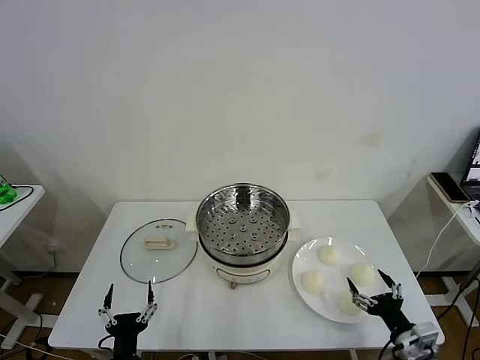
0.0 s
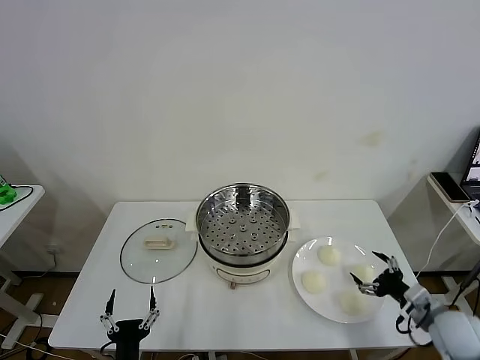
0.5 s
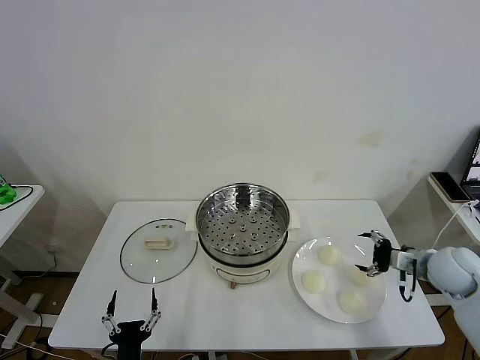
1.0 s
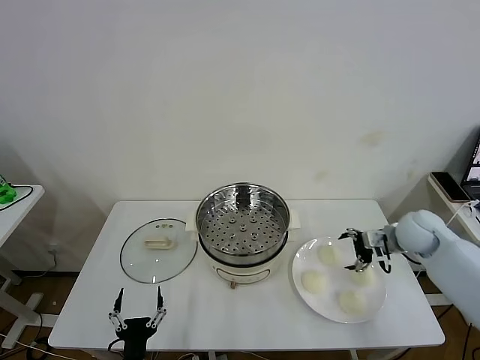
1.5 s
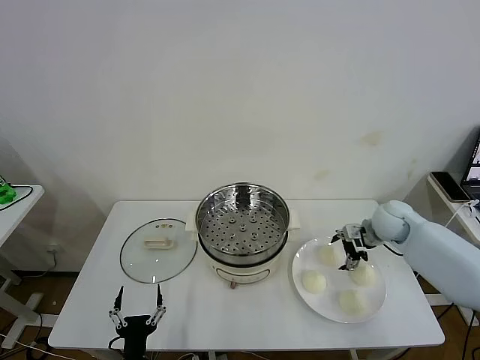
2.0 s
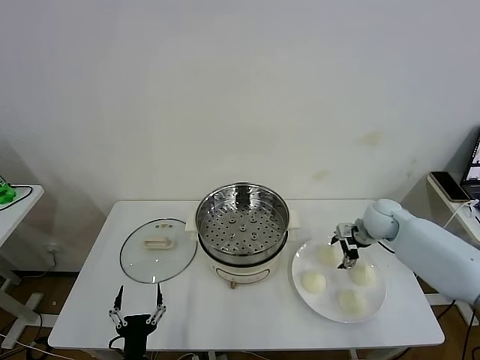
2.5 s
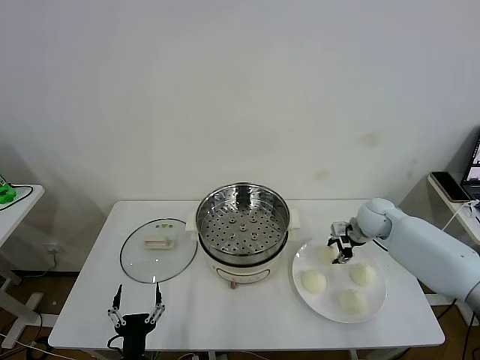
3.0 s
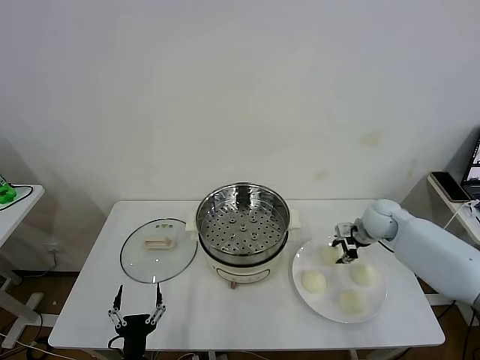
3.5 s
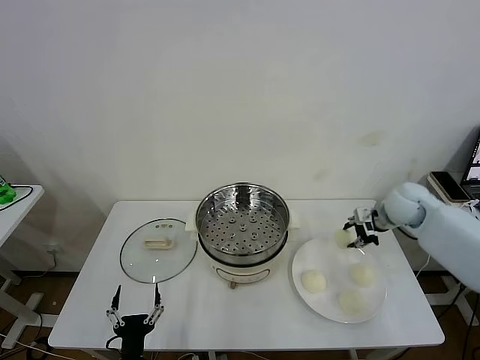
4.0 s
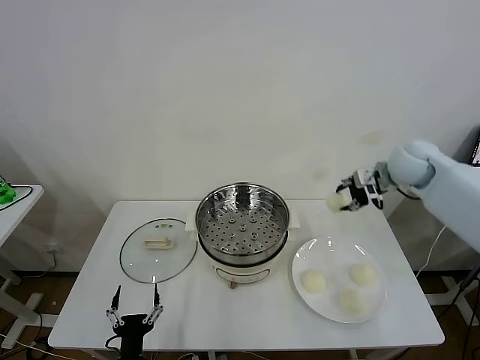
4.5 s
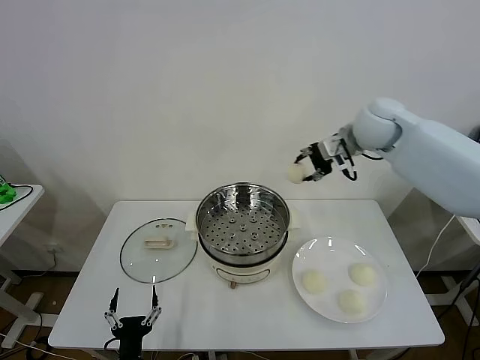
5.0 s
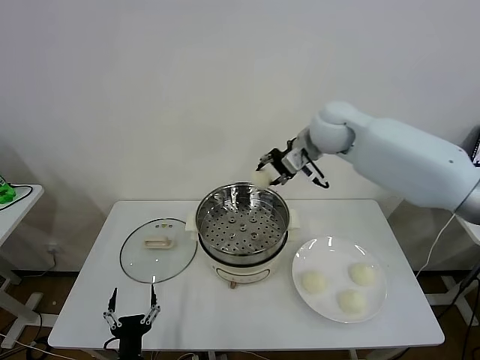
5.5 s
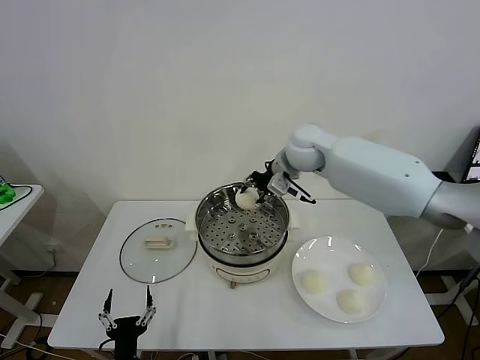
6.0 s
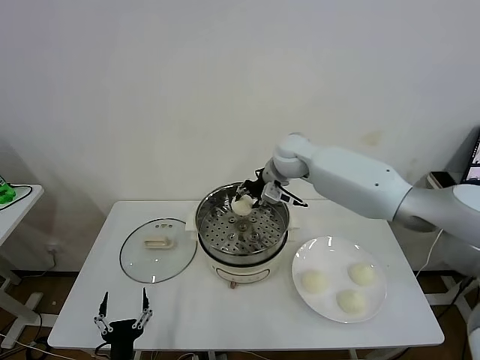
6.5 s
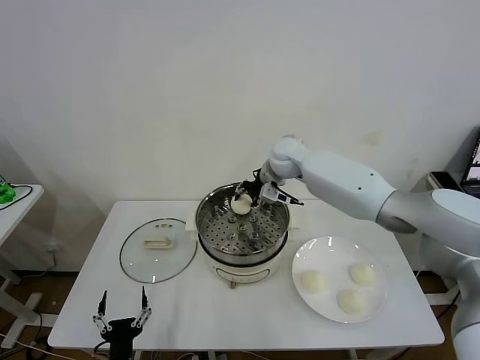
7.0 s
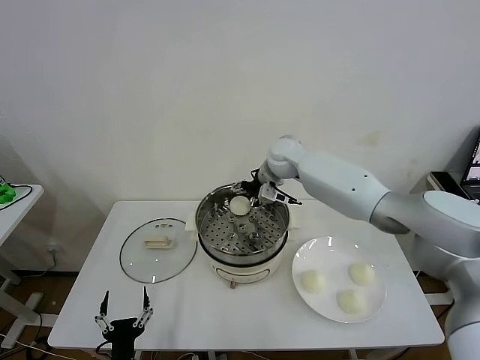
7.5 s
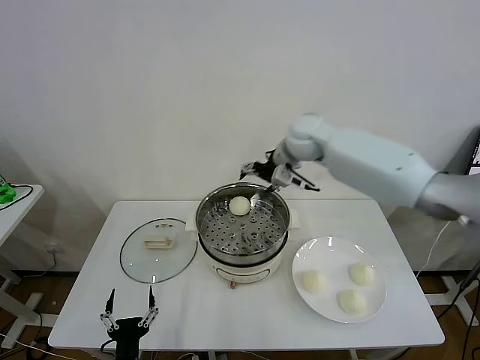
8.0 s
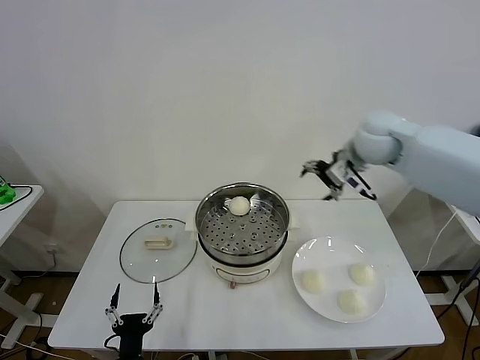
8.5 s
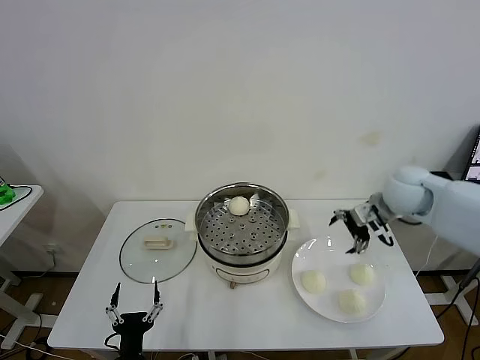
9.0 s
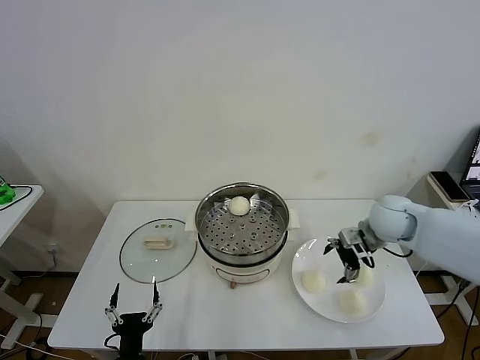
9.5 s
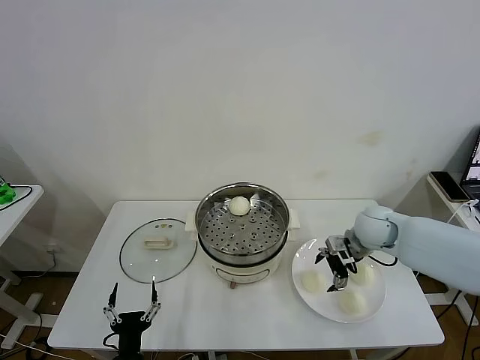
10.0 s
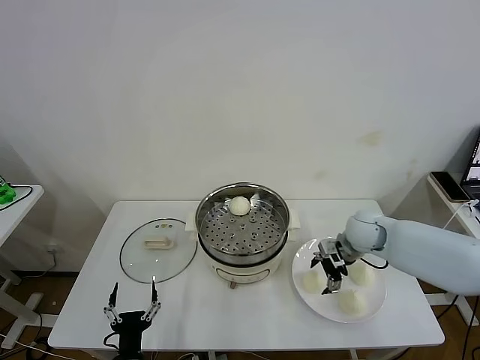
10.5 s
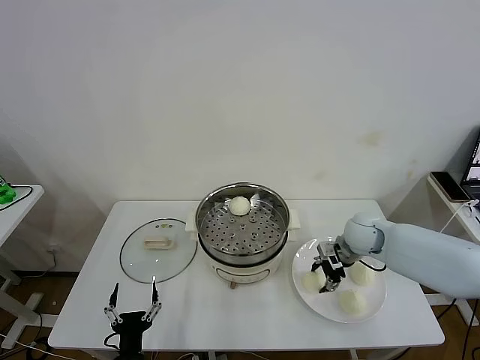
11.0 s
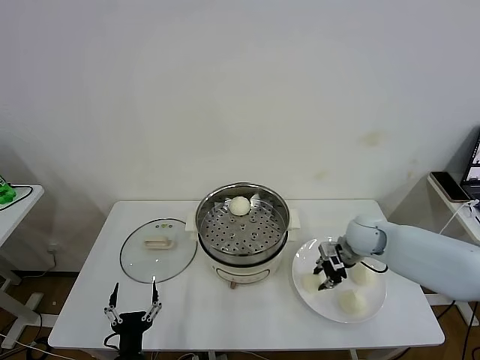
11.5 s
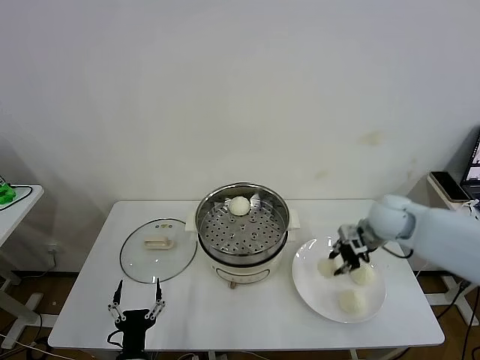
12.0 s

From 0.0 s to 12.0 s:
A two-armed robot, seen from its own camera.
Task of the whole recording: take steamed baozi put them in steamer then cover it.
Step, from 0.0 s to 3.0 s: Grasp the baozi with right gripper.
Step, from 3.5 s to 7.0 s: Place the baozi on the steamer with right gripper.
Step, from 7.5 s to 11.5 s: Grasp the baozi with right gripper.
From 2.0 s to 4.0 s: The right gripper moves upward, roughly 10 cm, and closes up.
From 4.0 s to 6.0 s: The right gripper travels to the left by about 25 cm.
From 6.0 s to 8.0 s: The right gripper travels upward by approximately 5 cm, and opens up.
From 8.0 s to 10.0 s: The right gripper shifts roughly 25 cm downward, to the right and backward.
From 10.0 s to 12.0 s: The right gripper heads upward, covering approximately 5 cm, and closes up.

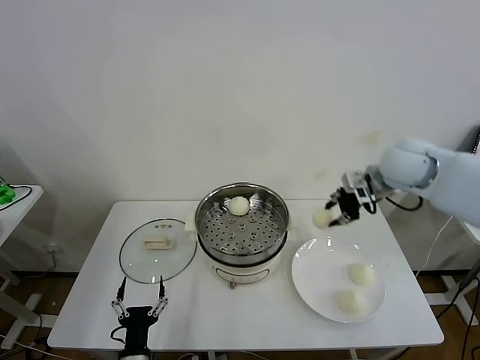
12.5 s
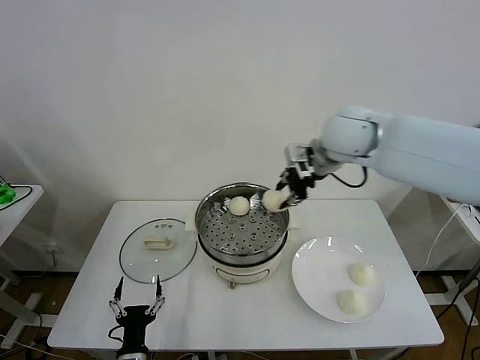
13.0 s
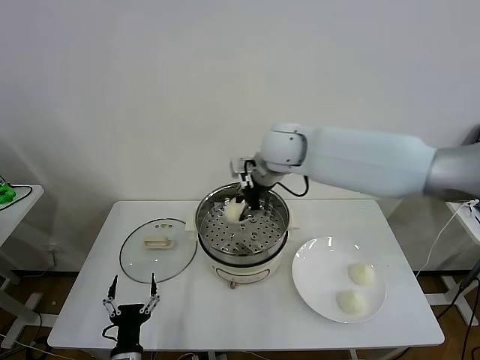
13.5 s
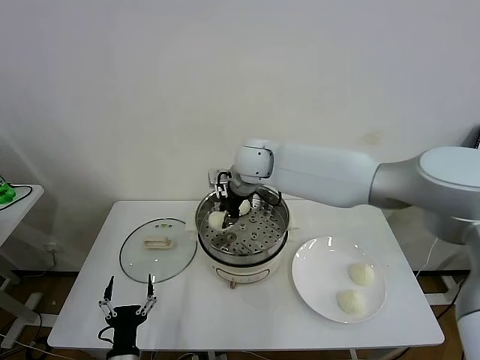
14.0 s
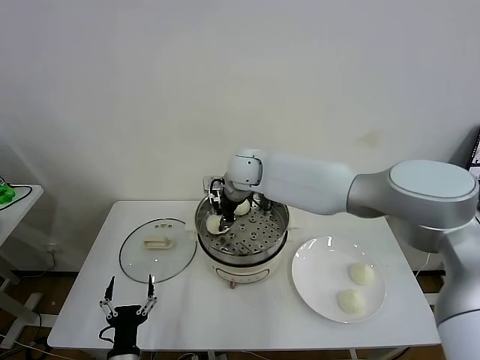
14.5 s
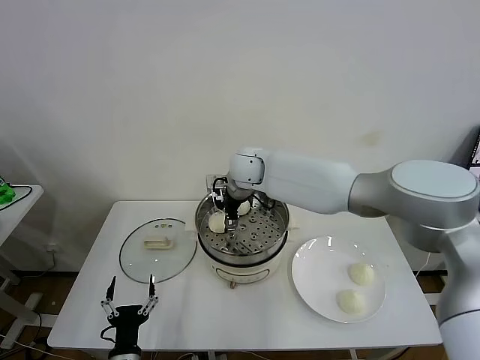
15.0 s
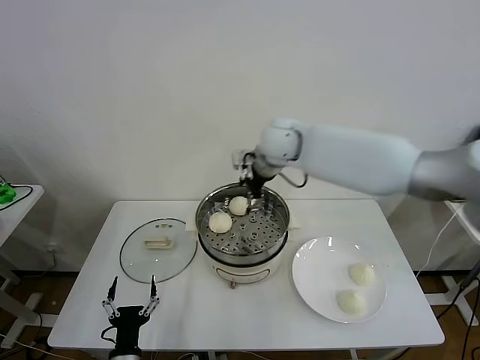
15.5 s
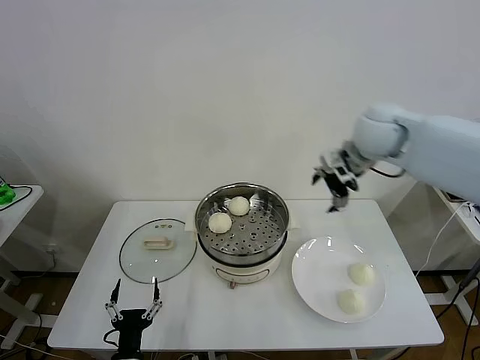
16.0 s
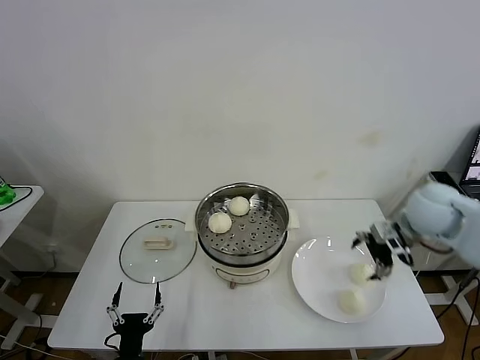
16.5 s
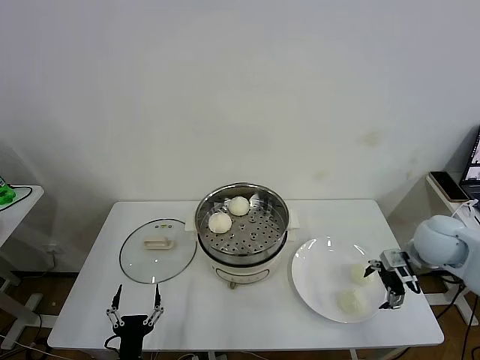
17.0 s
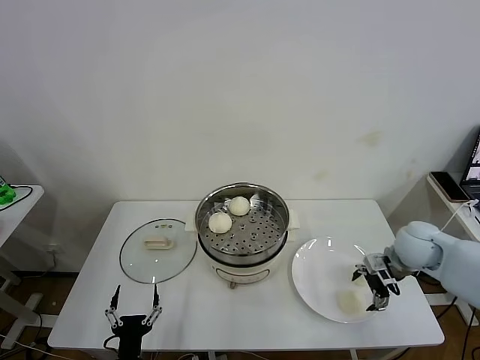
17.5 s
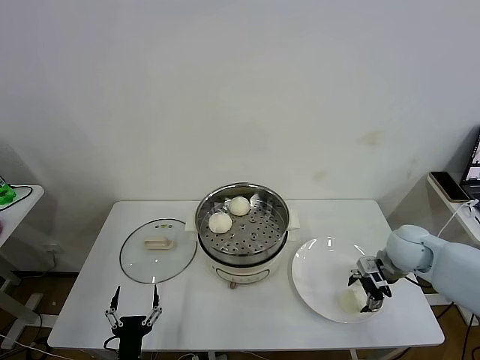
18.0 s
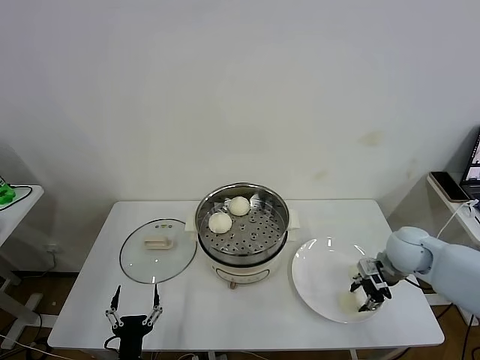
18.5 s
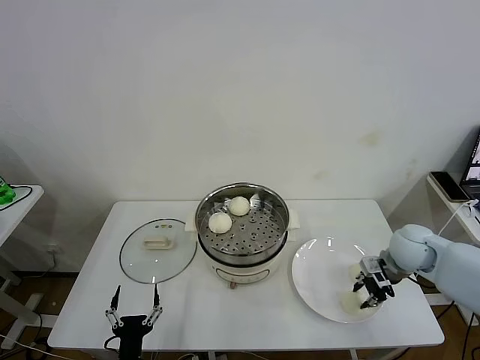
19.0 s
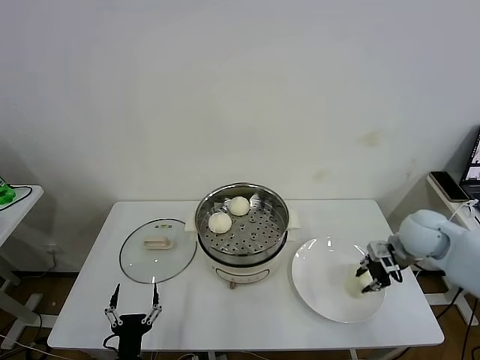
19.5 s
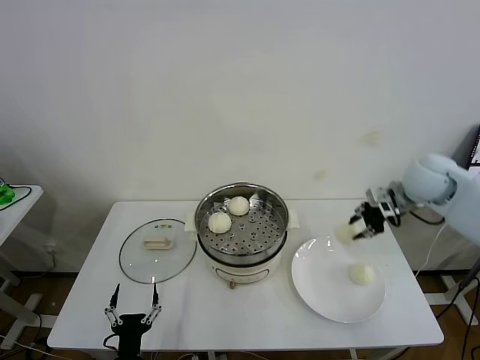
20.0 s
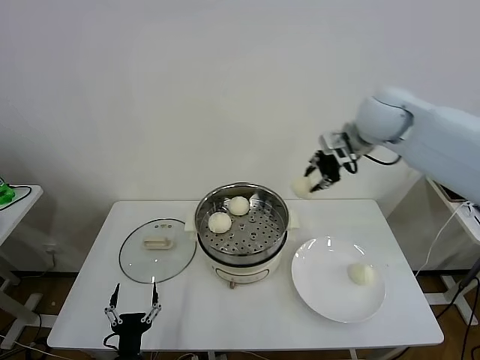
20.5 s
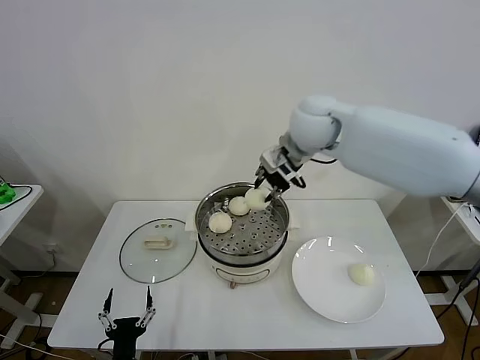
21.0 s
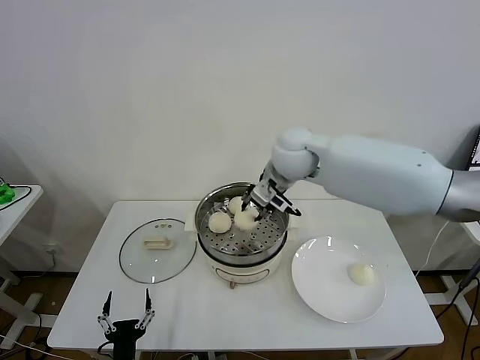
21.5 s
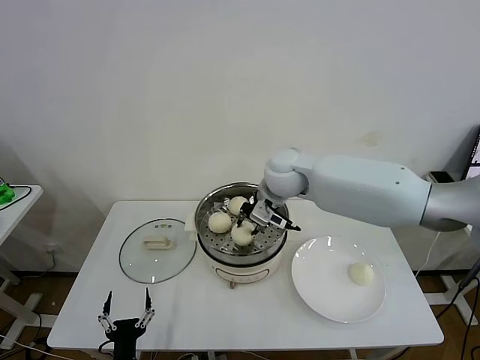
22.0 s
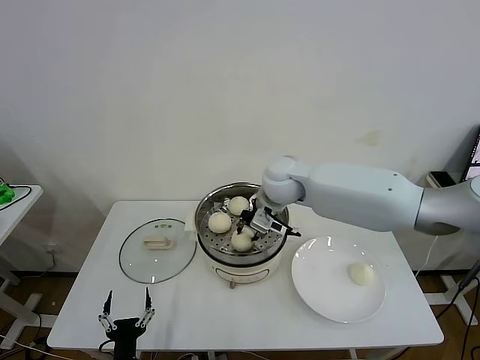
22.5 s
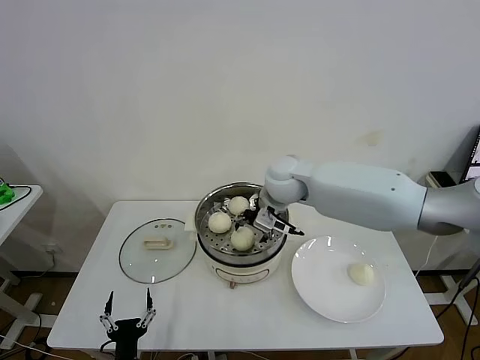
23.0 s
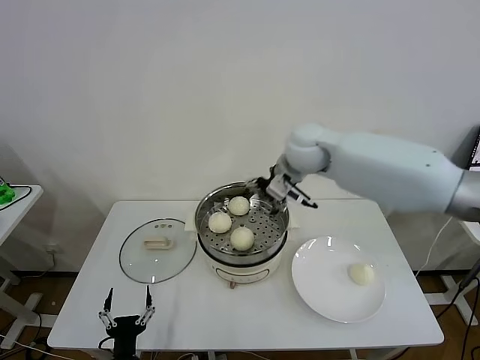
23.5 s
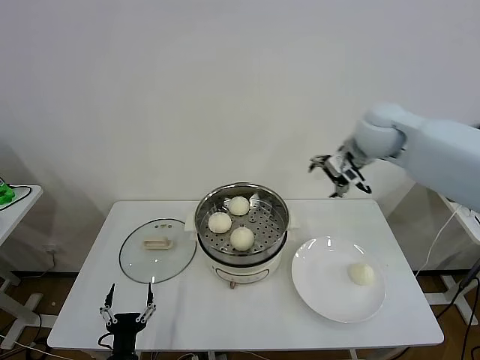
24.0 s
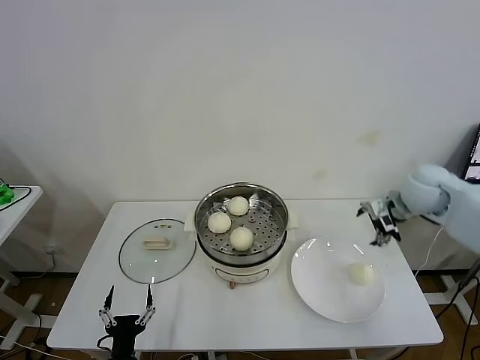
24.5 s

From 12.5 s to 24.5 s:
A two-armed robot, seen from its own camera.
Task of the whole recording: take steamed baozi put them in steamer then cover it.
Step, from 12.5 s to 14.5 s: Place the baozi on the steamer with right gripper.
Step, from 15.5 s to 19.0 s: Grasp the baozi with right gripper.
Step, from 19.5 s to 23.0 s: Place the baozi on the steamer with right gripper.
From 12.5 s to 14.5 s: The right gripper is displaced to the left by about 30 cm.
From 14.5 s to 16.5 s: The right gripper heads to the right, covering about 40 cm, and opens its fingers.
From 16.5 s to 18.5 s: The right gripper goes approximately 10 cm downward, and closes up.
From 18.5 s to 20.5 s: The right gripper moves upward, to the left and forward, approximately 35 cm.
From 20.5 s to 22.5 s: The right gripper moves downward and to the left, roughly 20 cm.
From 22.5 s to 24.5 s: The right gripper goes some 30 cm to the right, and opens its fingers.

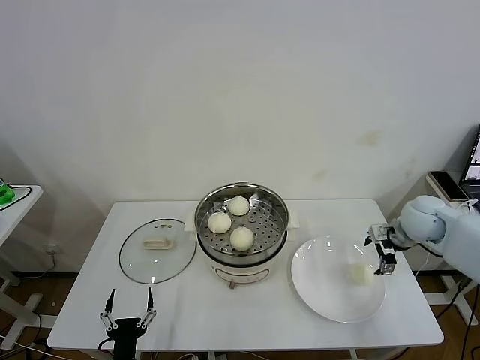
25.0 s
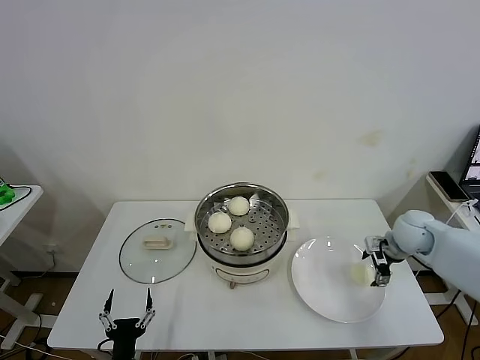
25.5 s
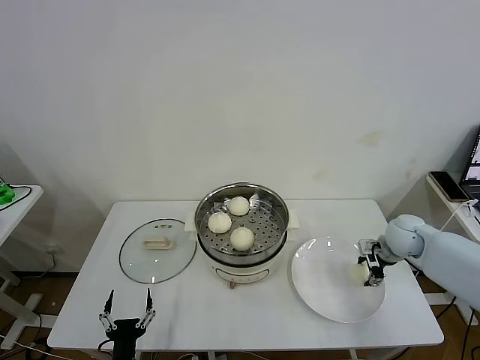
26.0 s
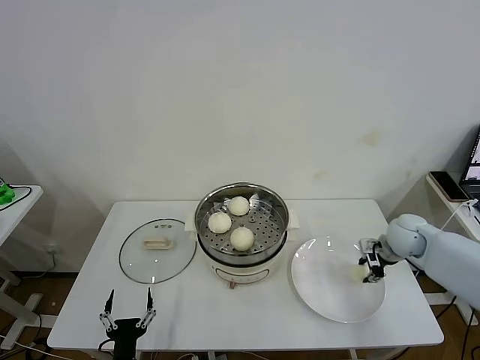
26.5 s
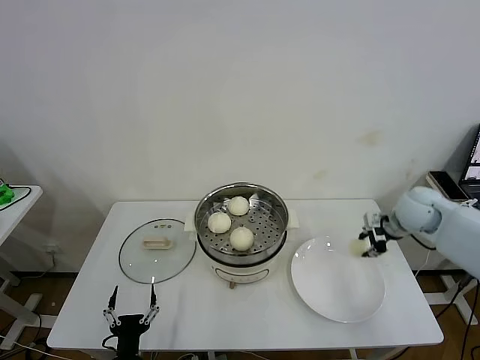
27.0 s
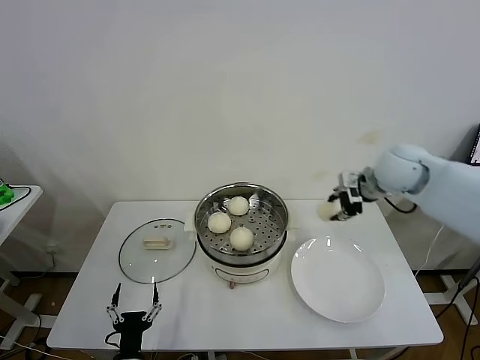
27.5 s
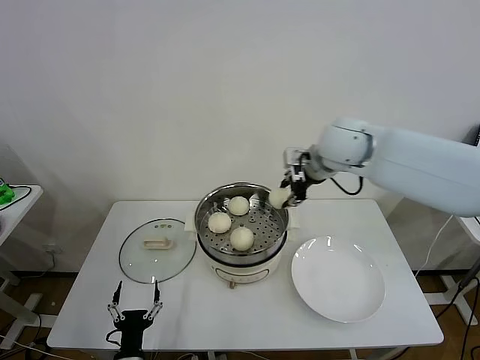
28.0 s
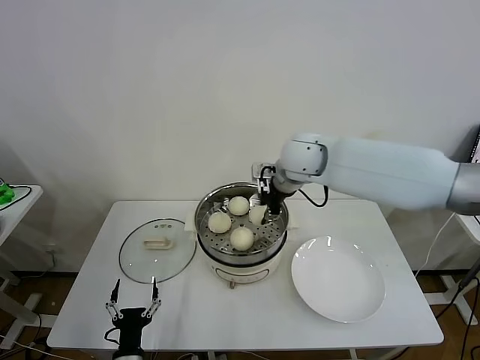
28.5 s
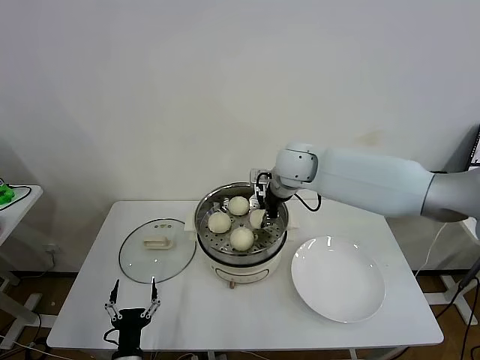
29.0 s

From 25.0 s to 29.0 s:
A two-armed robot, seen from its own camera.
Task of the whole recording: take steamed baozi put them in steamer then cover it.
From 25.0 s to 27.0 s: The right gripper reaches some 5 cm downward, then returns, and closes up.
From 27.0 s to 29.0 s: The right gripper travels to the left by approximately 25 cm.
